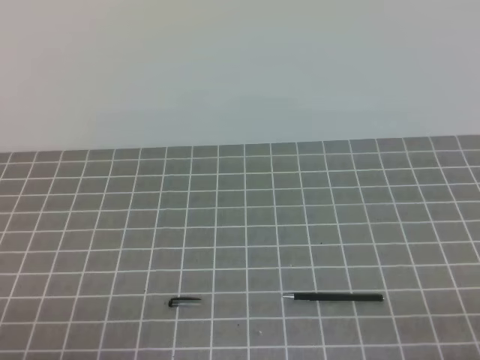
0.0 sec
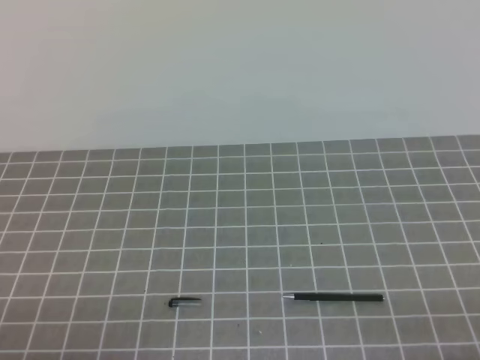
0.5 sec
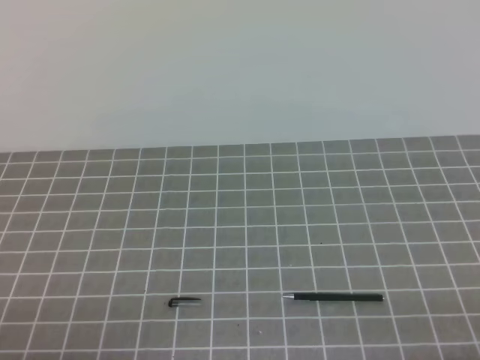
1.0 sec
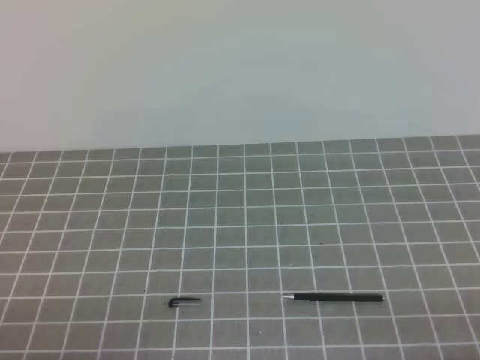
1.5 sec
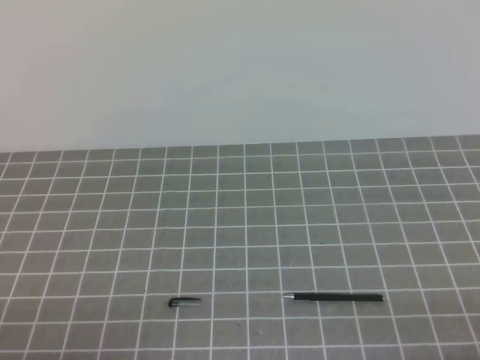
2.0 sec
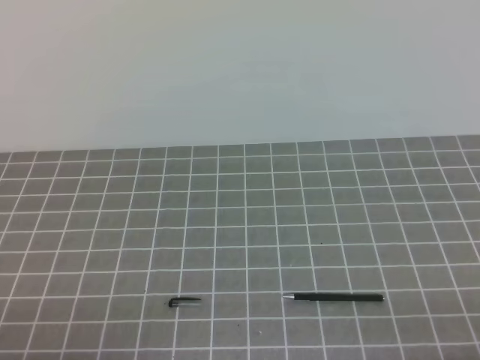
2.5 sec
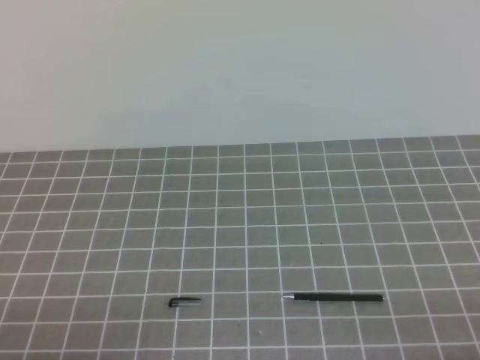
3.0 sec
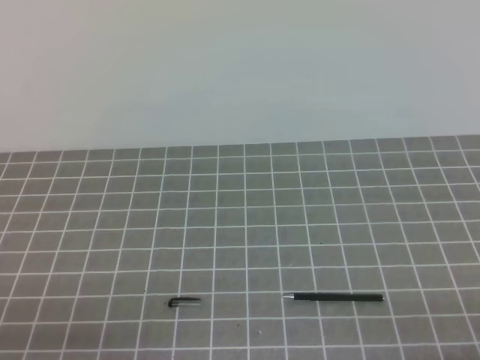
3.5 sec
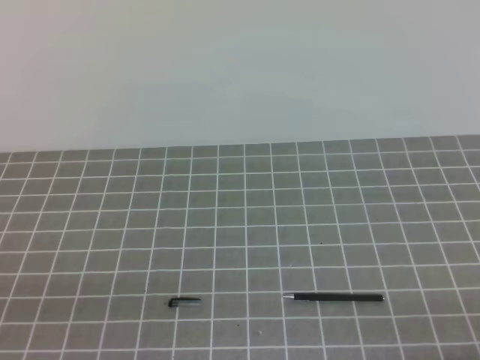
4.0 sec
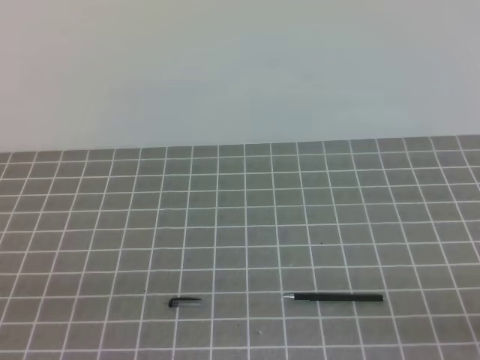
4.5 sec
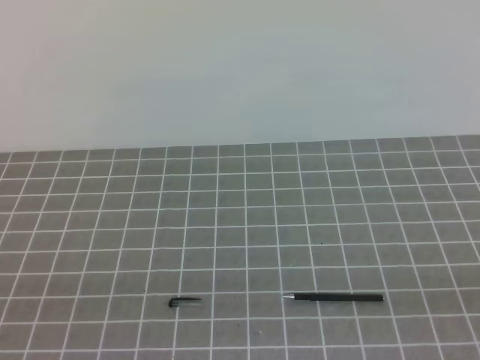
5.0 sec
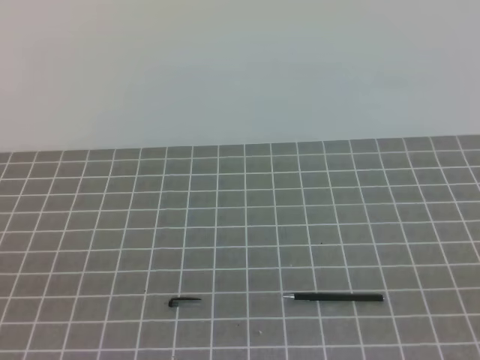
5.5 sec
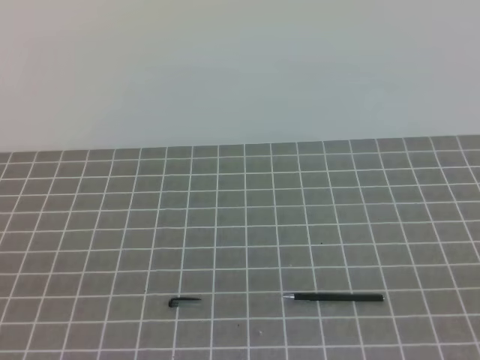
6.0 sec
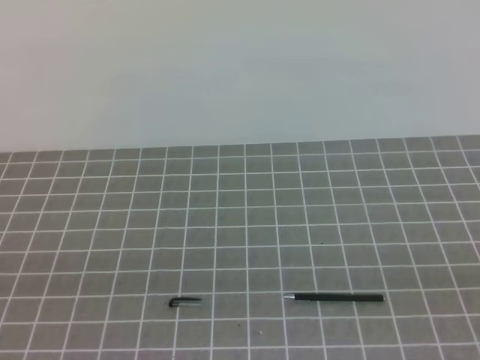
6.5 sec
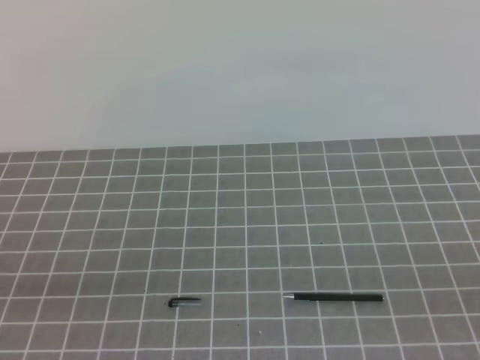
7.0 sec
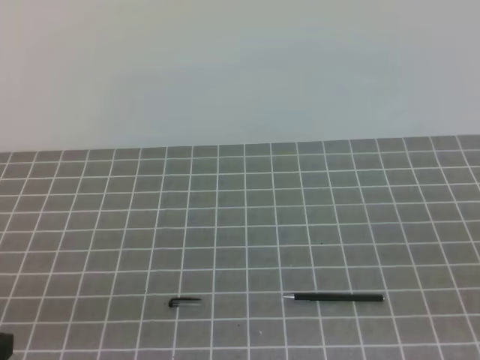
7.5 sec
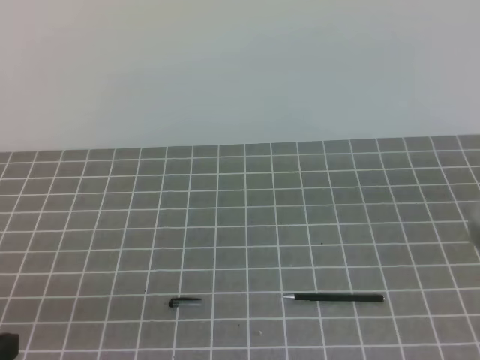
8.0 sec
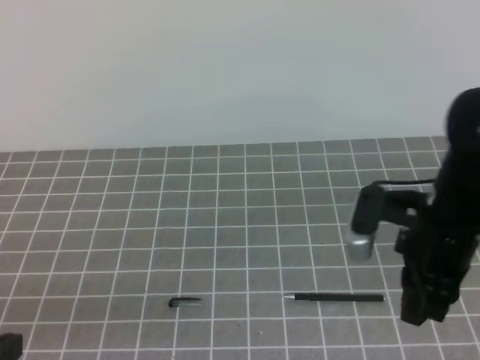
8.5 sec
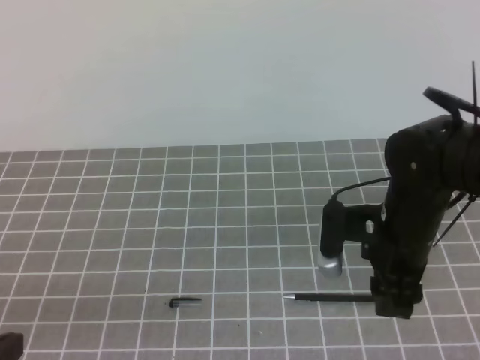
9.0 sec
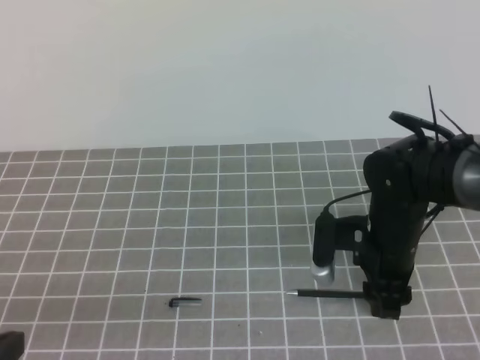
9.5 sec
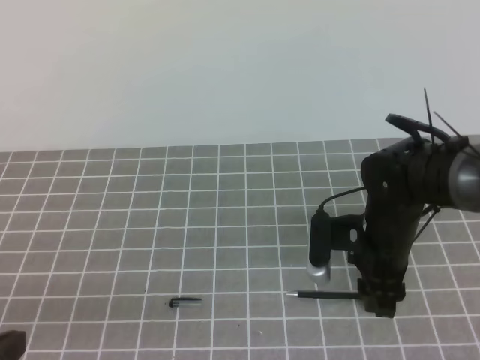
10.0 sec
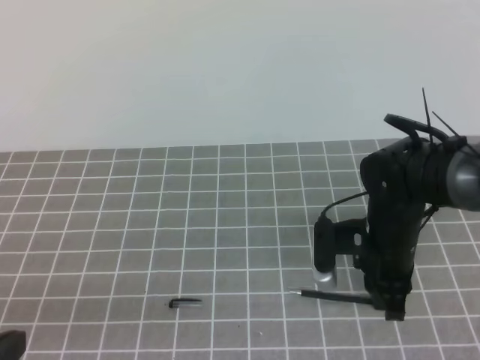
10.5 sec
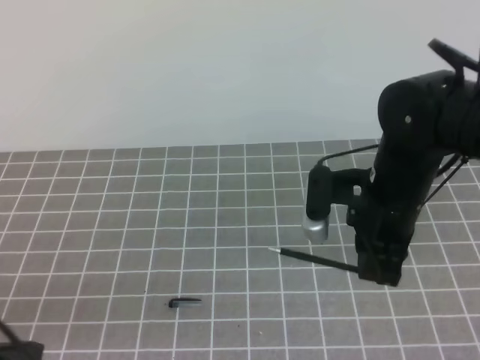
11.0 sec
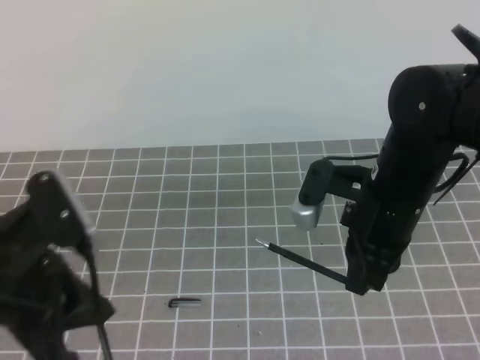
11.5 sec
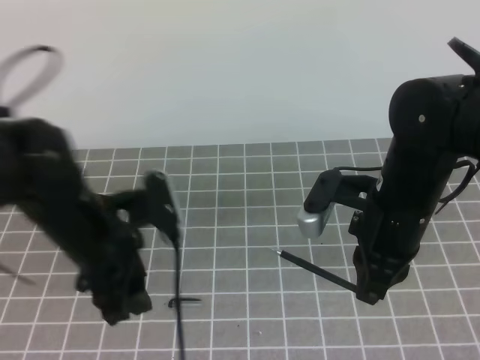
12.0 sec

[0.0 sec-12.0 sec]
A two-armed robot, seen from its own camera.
Task of the whole recording: on the grey tablecloth, hold the pen cap in one hand and the pen in the other, then cover the pen cap.
8.0 sec to 10.0 sec: The right gripper moves downward, forward and to the left, about 25 cm, and opens.
10.0 sec to 12.0 sec: The left gripper shifts some 20 cm forward and to the right, and opens. The right gripper shifts approximately 10 cm upward, and closes up.

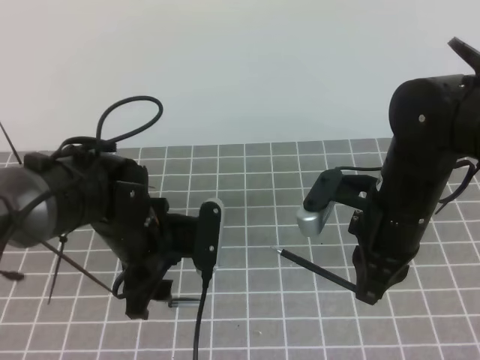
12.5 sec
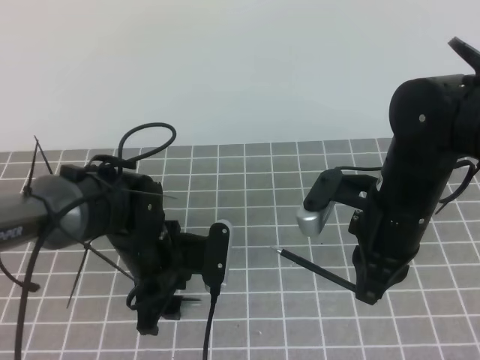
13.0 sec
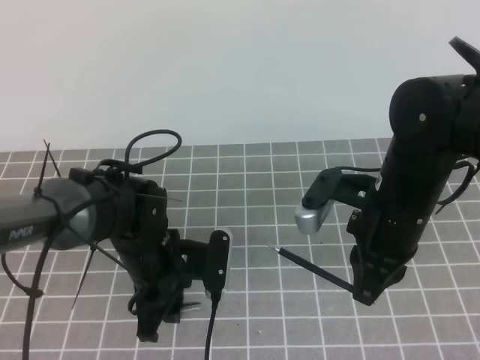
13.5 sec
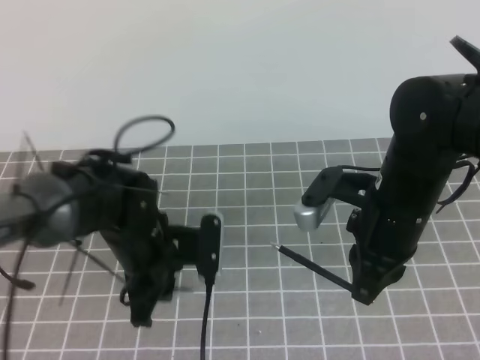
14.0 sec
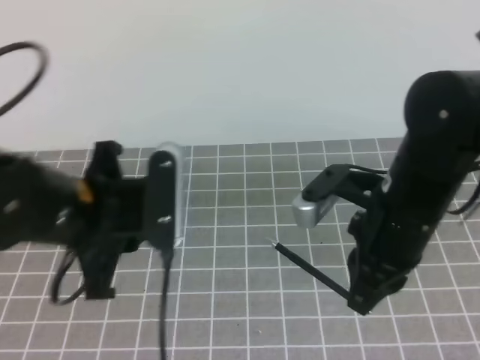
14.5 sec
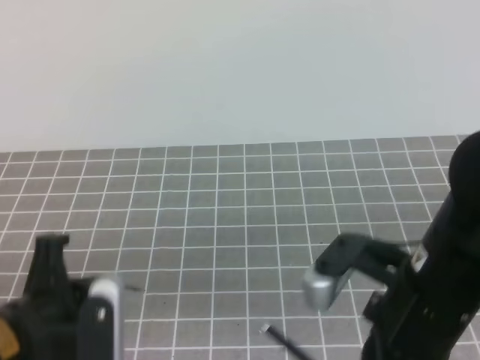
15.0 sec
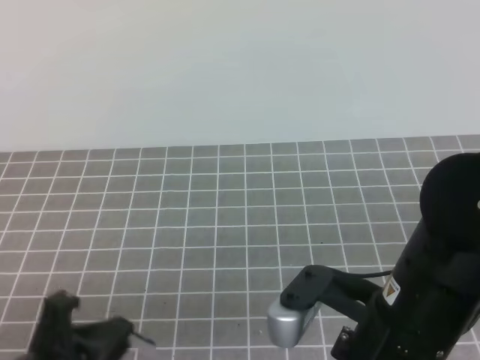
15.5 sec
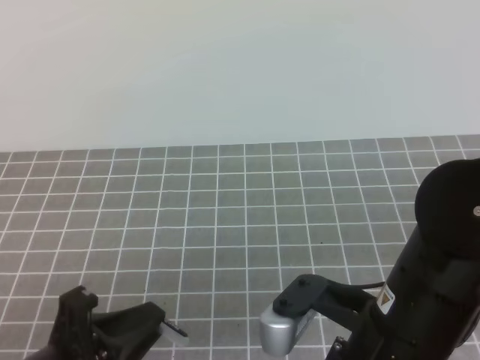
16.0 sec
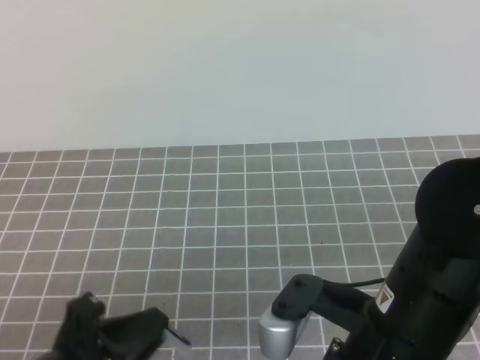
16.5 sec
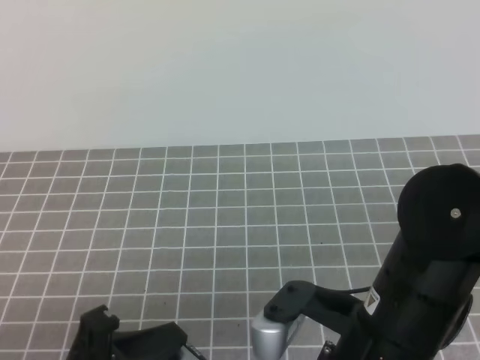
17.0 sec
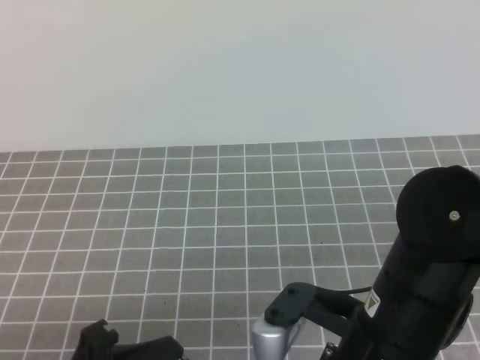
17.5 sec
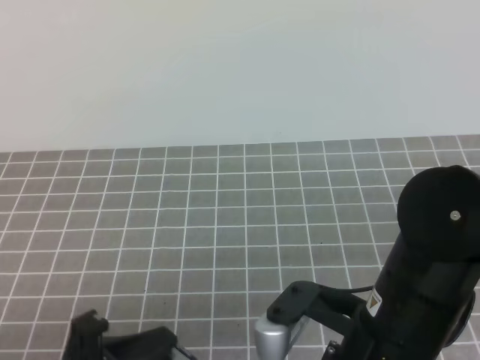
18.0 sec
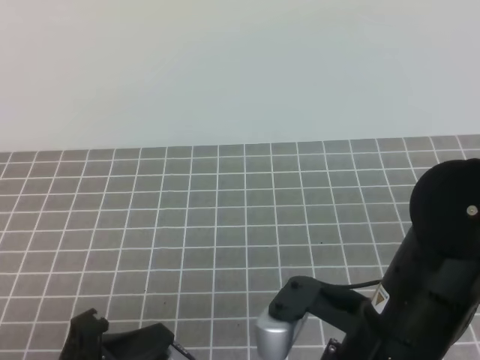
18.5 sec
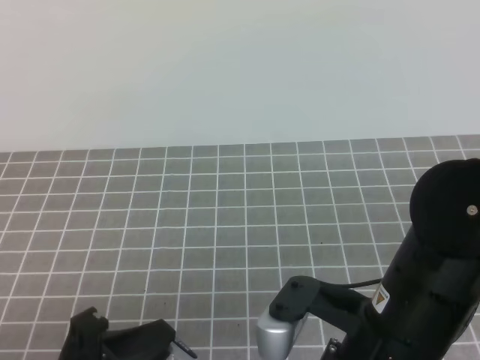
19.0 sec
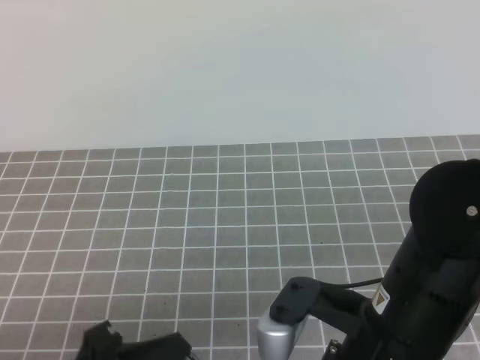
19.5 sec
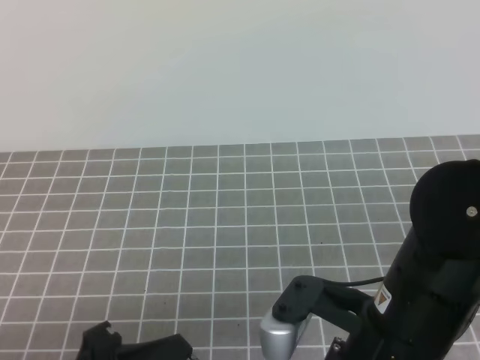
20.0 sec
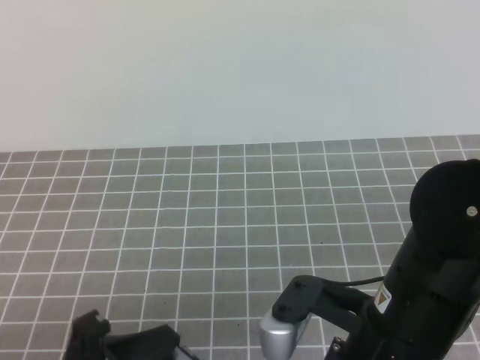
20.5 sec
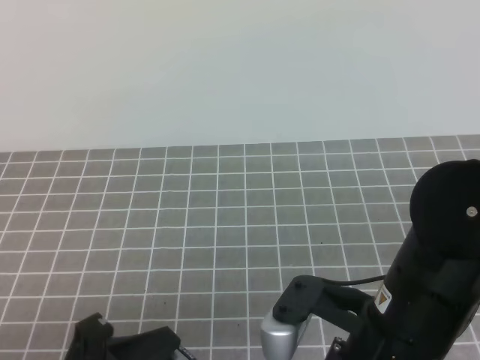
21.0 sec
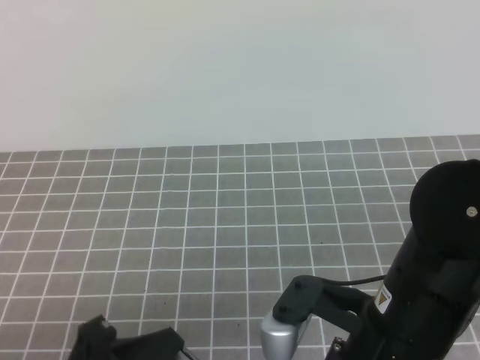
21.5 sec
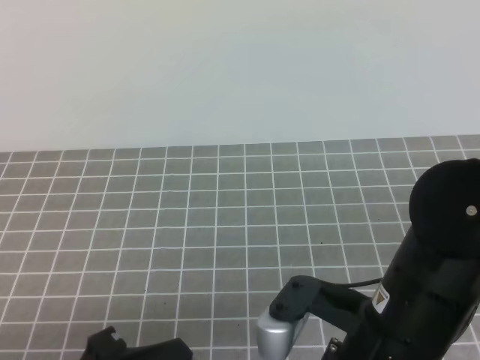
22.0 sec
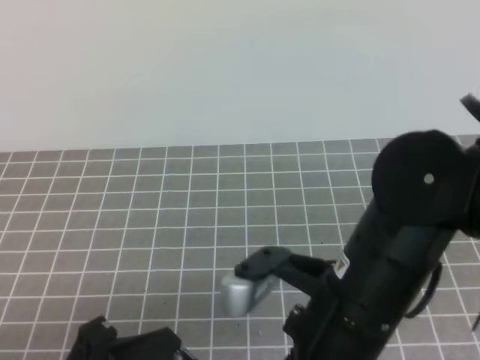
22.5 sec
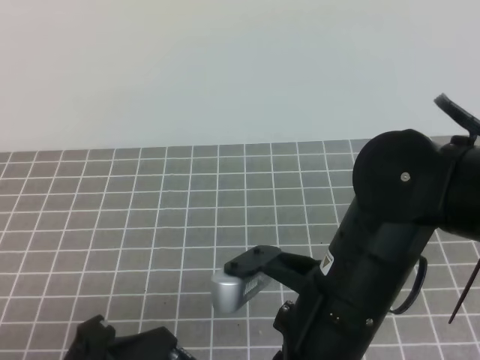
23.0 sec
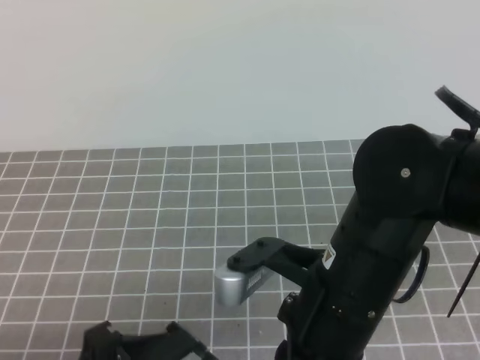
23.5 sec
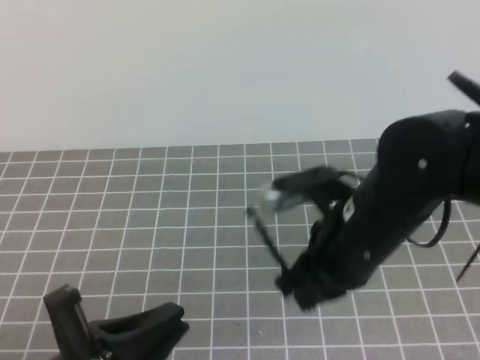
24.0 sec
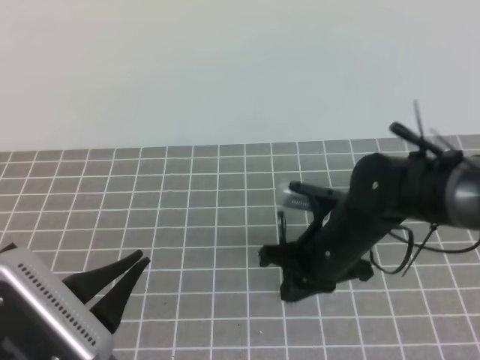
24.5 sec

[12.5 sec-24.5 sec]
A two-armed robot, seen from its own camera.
Task of the whole recording: on the grey tablecloth, hold the pen cap in one hand and the pen in the other, then cover the pen cap.
12.5 sec to 14.5 sec: The left gripper is displaced upward and backward by roughly 10 cm, and closes up.
14.5 sec to 16.5 sec: The left gripper travels backward and downward by roughly 15 cm; the right gripper is displaced backward by about 15 cm.
16.5 sec to 22.5 sec: The grippers make only small movements.
22.5 sec to 24.5 sec: The left gripper opens and closes again. The right gripper moves forward and downward, roughly 15 cm.

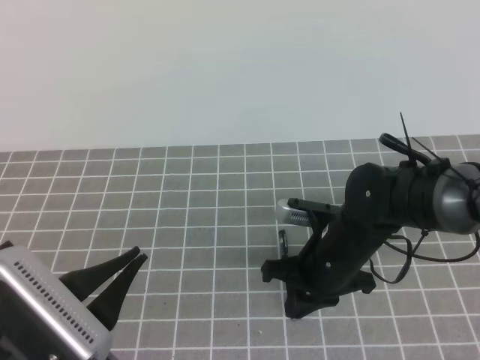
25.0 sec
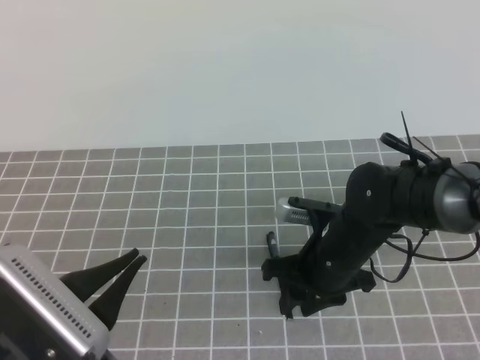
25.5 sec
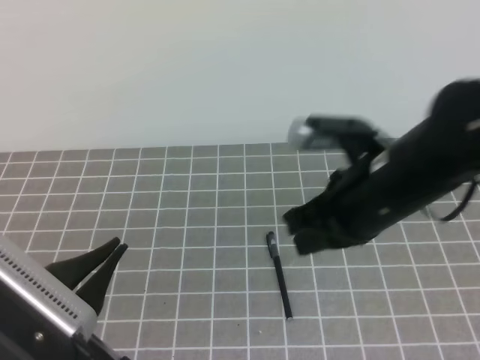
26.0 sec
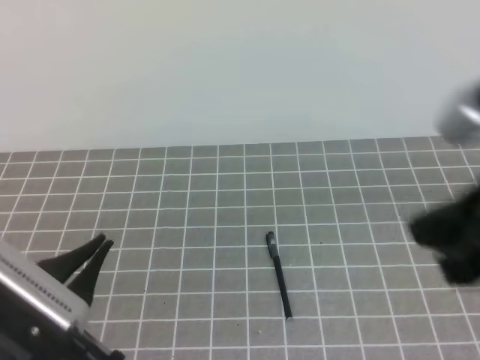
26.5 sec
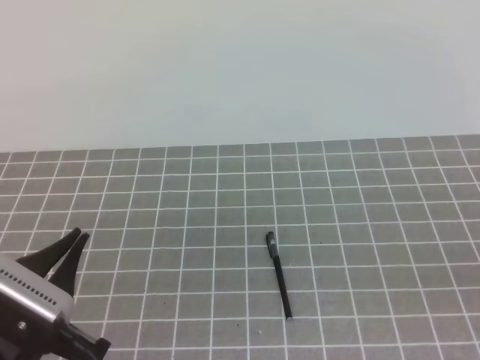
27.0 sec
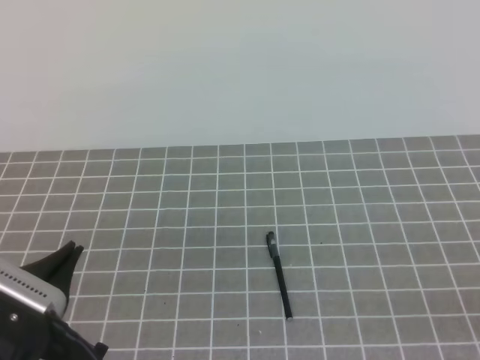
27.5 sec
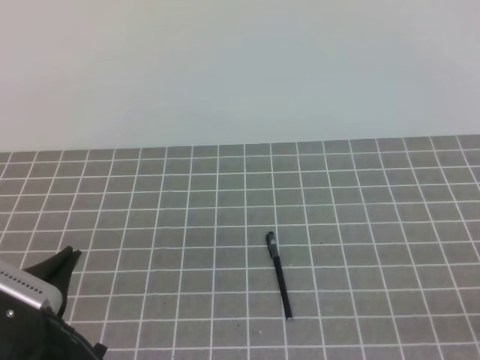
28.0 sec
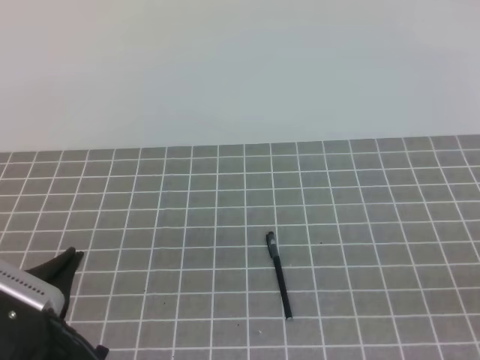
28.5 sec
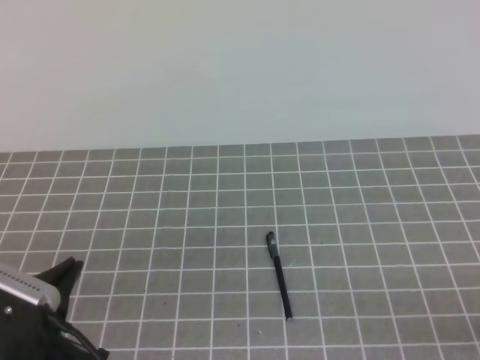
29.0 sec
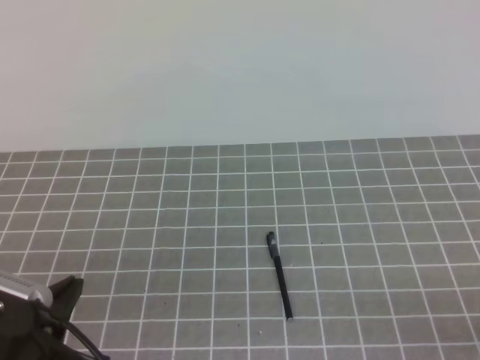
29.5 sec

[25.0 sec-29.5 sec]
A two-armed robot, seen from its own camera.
Task of the whole recording: on the grey tablecloth, hold the pen cap in one hand and the pen in the other, then cover the pen cap.
25.0 sec to 27.0 sec: The right gripper moves backward, to the right and upward, about 35 cm, and opens, then closes once more.
27.0 sec to 29.5 sec: The right gripper travels downward by roughly 15 cm.
